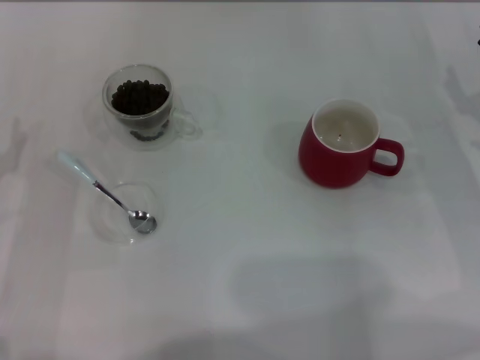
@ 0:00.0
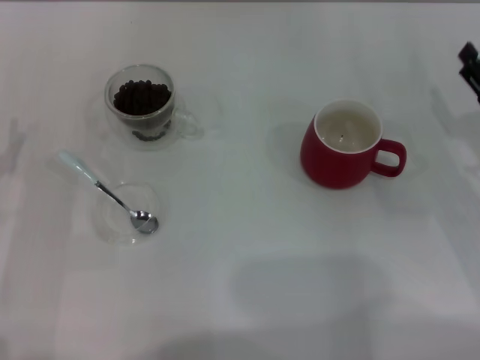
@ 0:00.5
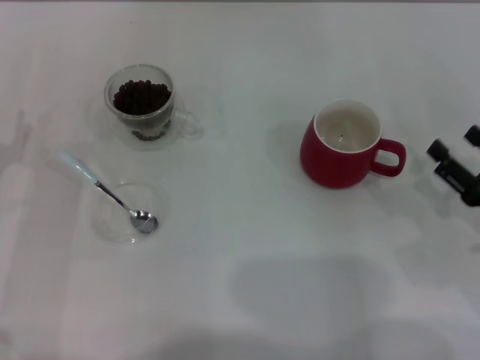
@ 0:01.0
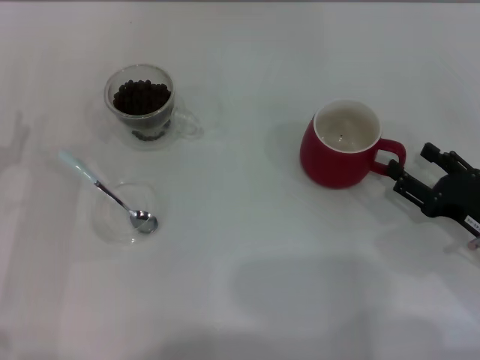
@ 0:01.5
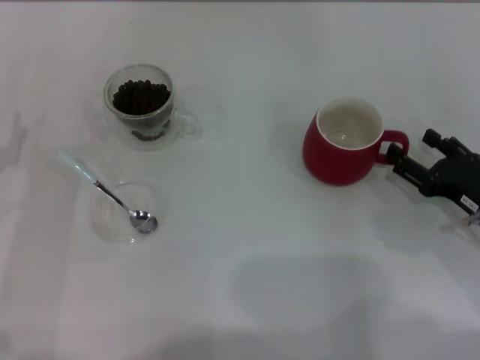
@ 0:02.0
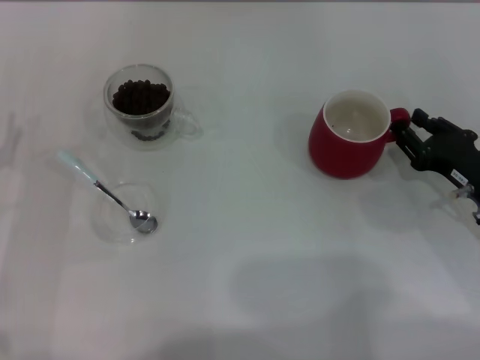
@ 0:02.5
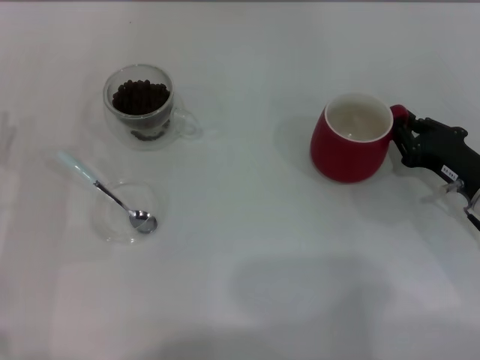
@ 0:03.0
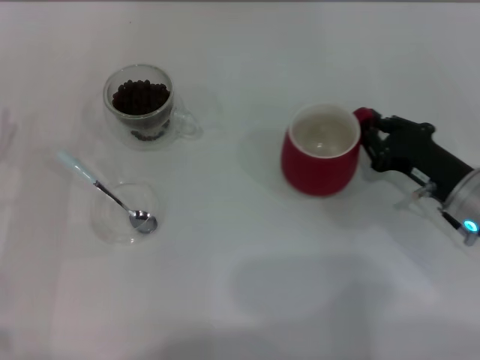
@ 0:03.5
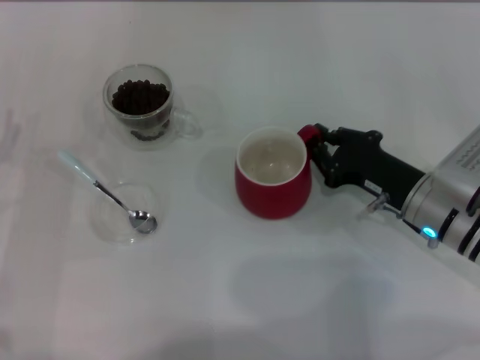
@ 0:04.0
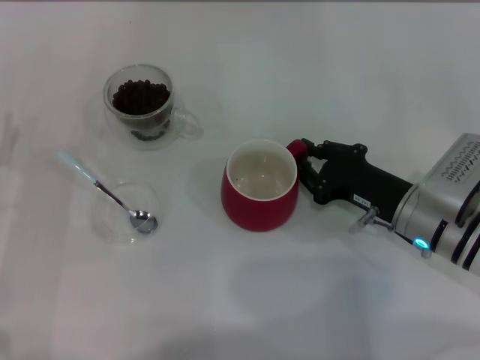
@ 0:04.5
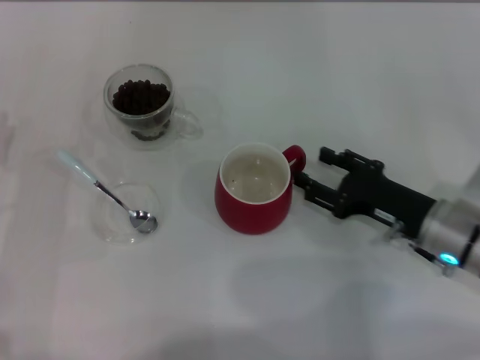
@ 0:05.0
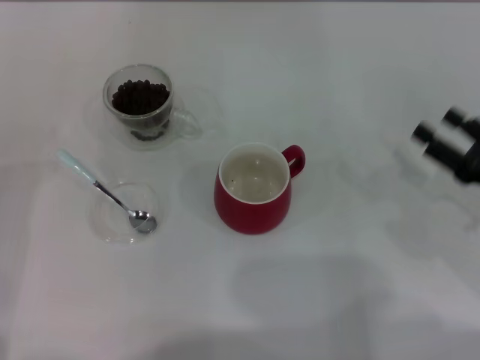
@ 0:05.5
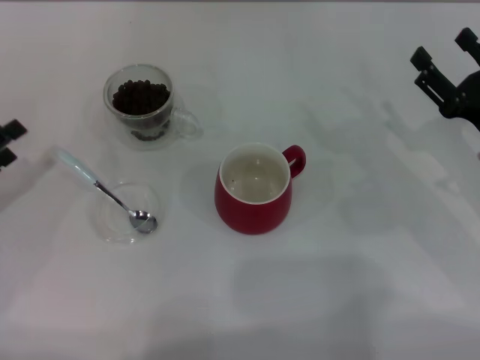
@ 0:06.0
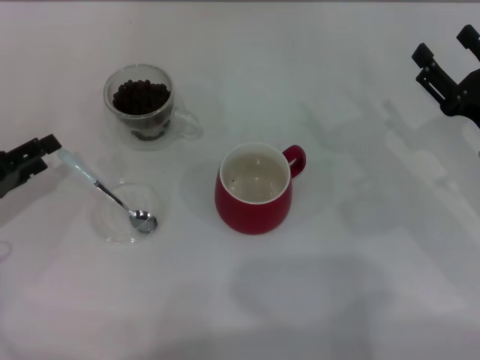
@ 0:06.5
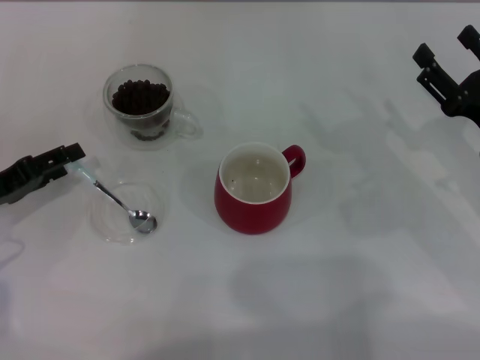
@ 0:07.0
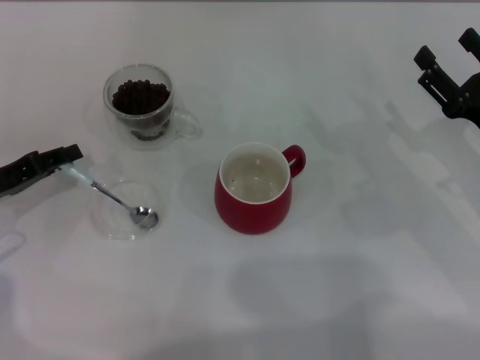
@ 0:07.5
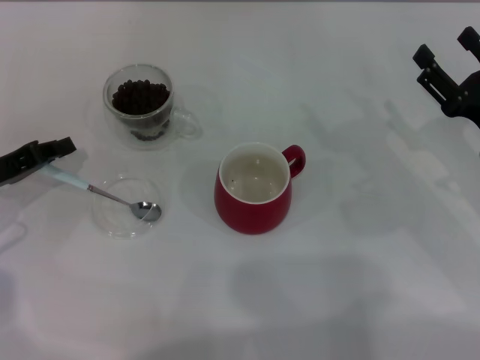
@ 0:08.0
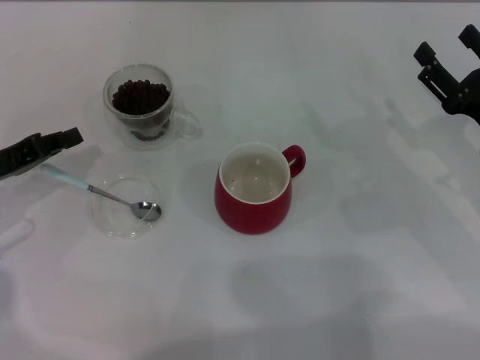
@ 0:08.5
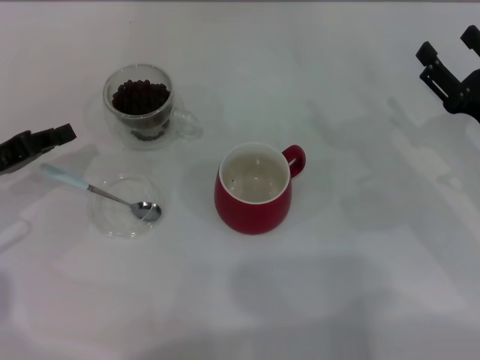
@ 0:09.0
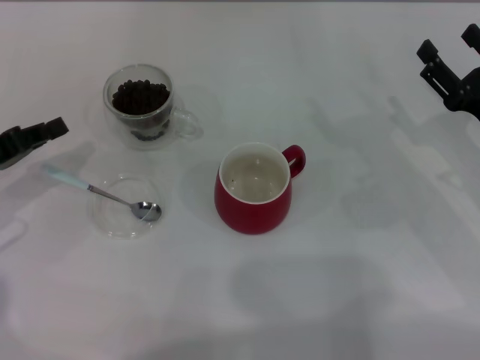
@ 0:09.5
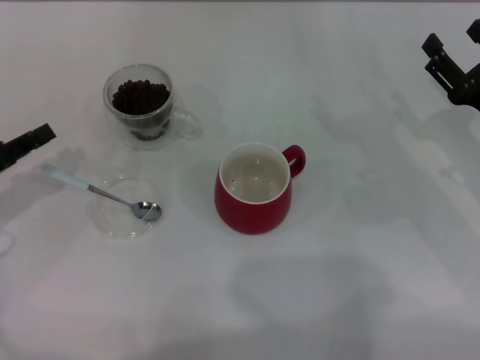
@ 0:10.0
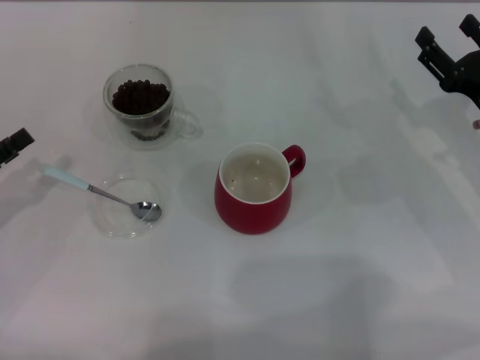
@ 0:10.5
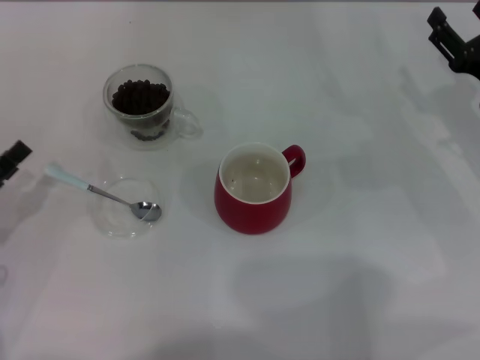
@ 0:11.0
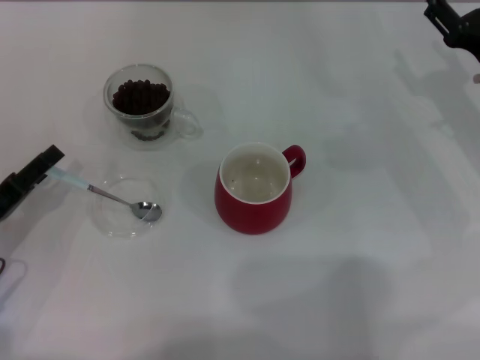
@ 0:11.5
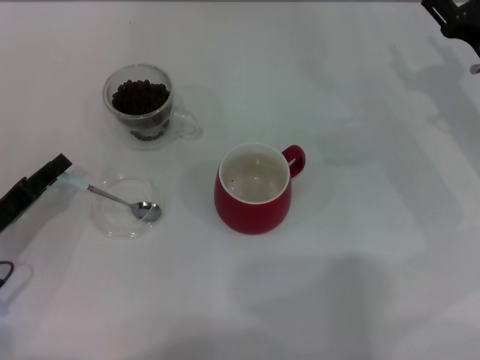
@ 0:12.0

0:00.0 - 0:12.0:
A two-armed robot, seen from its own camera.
Task of the whole recording: Use a blue spoon to take out the coffee beans from the glass and pour them into the red cup.
0:00.0 - 0:02.0: The right gripper is displaced backward by roughly 5 cm.
0:02.0 - 0:04.0: The right gripper goes about 10 cm to the left, and closes up.
0:04.0 - 0:06.0: The right gripper moves to the right, some 10 cm, and opens up.
0:06.0 - 0:08.0: The left gripper shifts by about 5 cm, and closes up.
0:08.0 - 0:10.0: The grippers move only a little.
0:10.0 - 0:12.0: The left gripper ends up approximately 5 cm from where it was, and opens up. The right gripper goes some 5 cm forward.

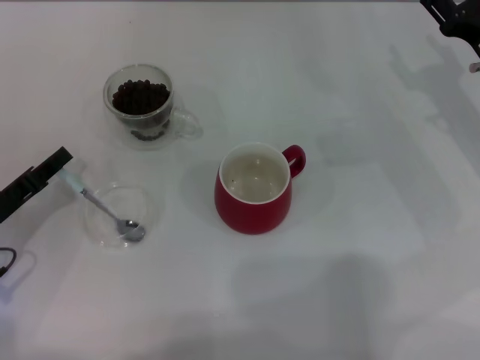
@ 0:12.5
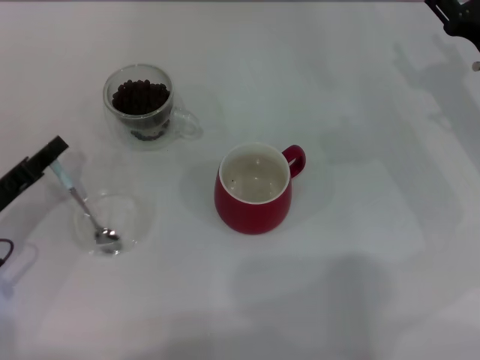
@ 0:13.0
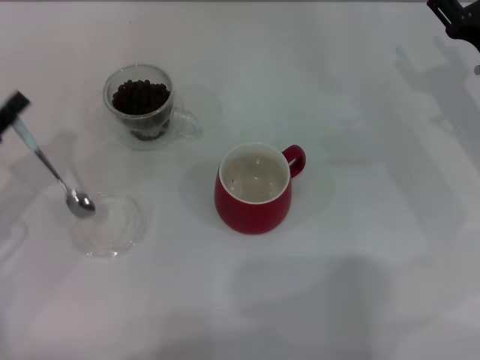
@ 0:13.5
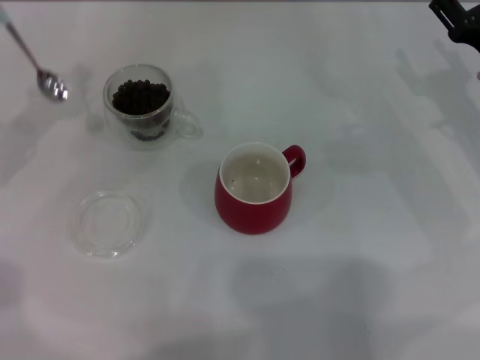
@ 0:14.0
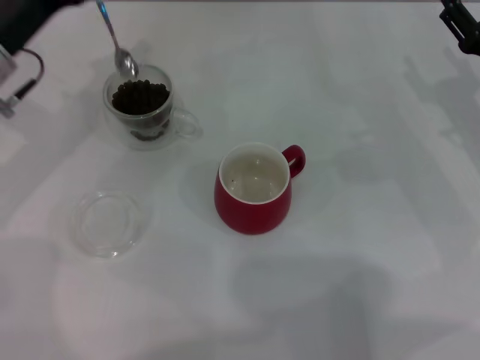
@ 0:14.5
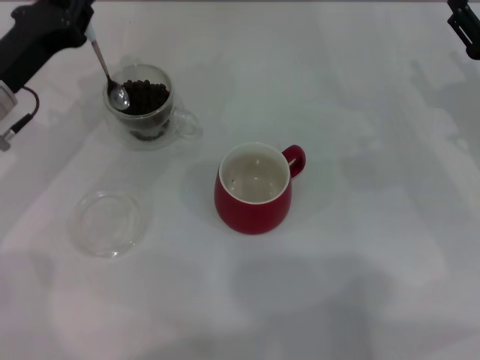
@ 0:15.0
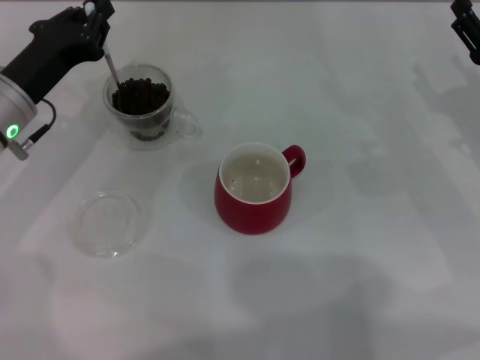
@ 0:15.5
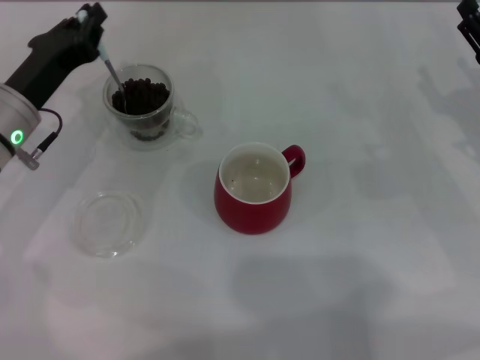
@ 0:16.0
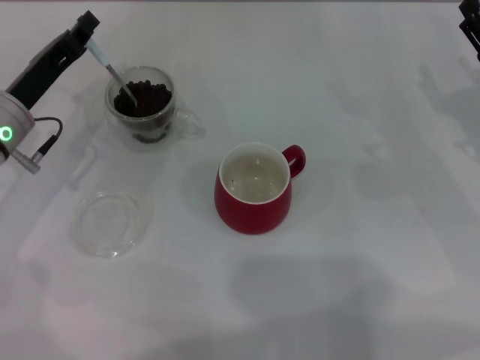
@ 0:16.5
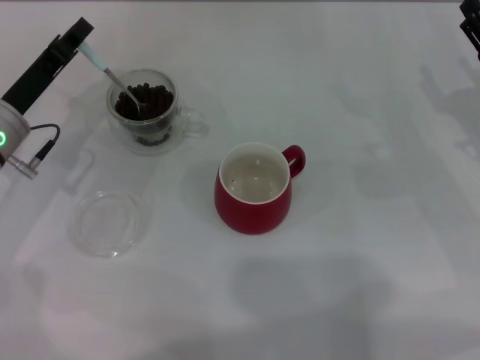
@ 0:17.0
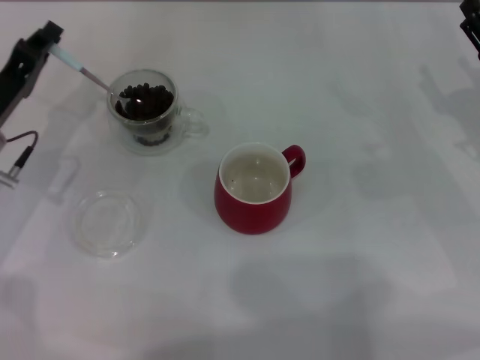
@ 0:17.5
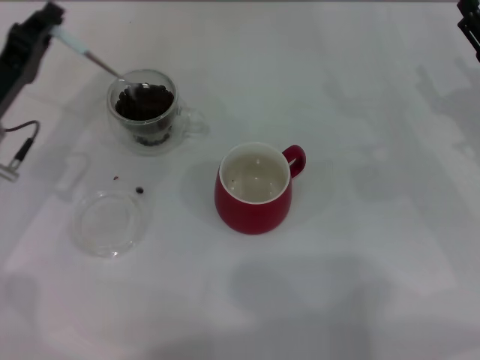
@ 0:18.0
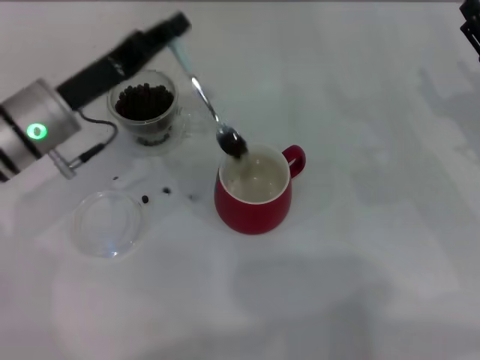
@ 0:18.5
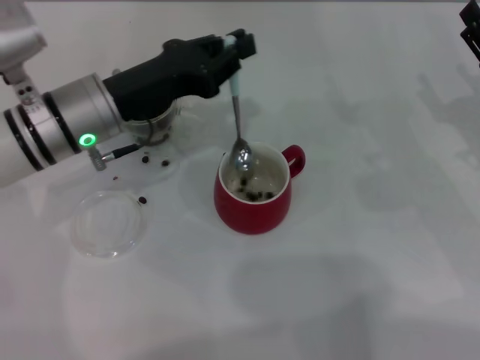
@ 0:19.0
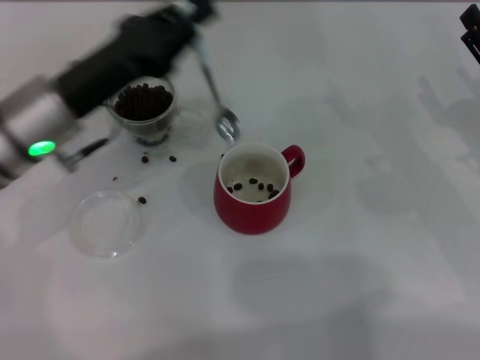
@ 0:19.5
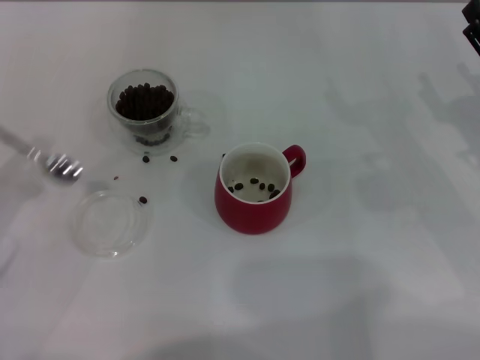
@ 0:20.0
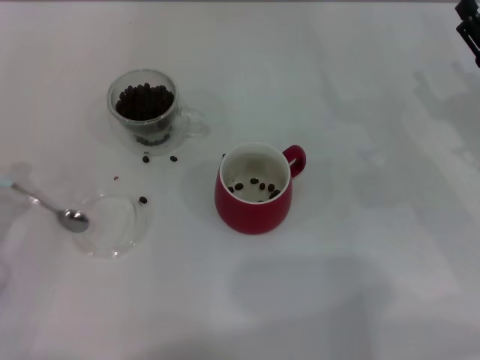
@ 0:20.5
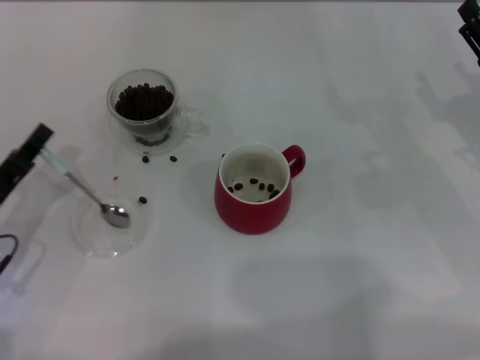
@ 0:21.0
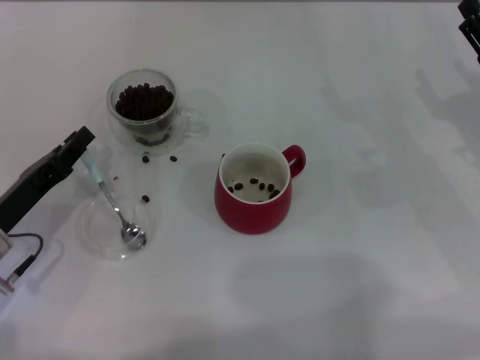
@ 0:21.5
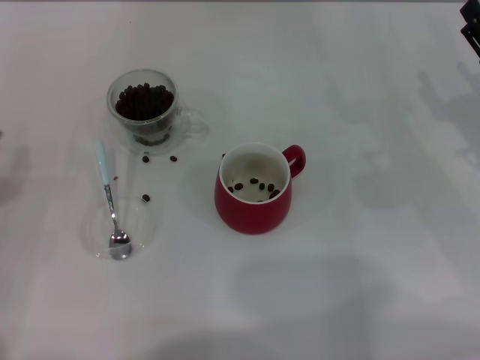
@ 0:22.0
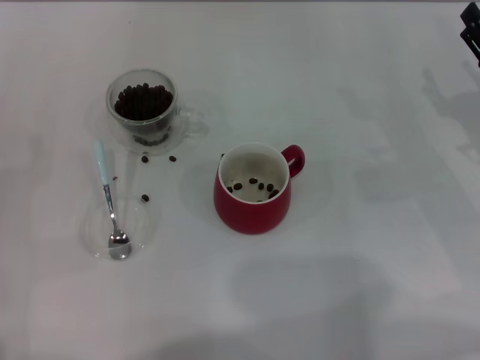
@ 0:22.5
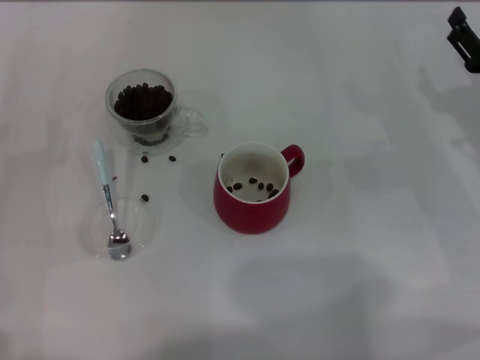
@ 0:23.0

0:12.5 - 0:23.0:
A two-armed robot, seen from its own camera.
Task of the whole recording: Use a blue spoon to take out the coffee beans from the glass and pour them into the red cup.
0:12.5 - 0:14.5: The left gripper shifts some 20 cm forward, upward and to the right.
0:14.5 - 0:16.5: The left gripper travels downward by approximately 5 cm.
0:16.5 - 0:19.0: The left gripper shifts about 10 cm to the right.
0:19.0 - 0:21.0: The left gripper is displaced to the left, backward and downward by approximately 20 cm.
0:21.0 - 0:23.0: The left gripper opens up.
